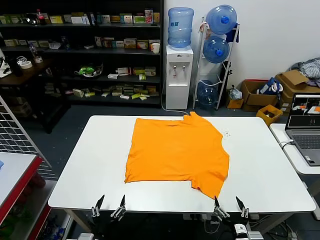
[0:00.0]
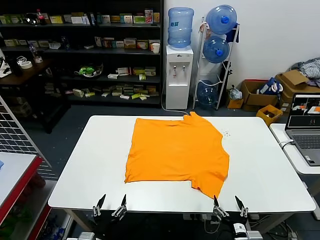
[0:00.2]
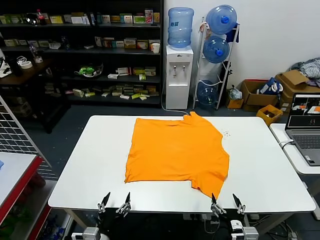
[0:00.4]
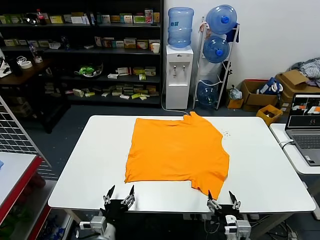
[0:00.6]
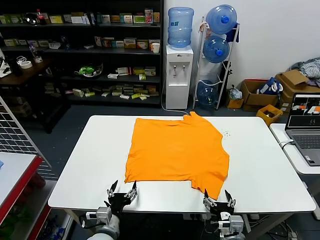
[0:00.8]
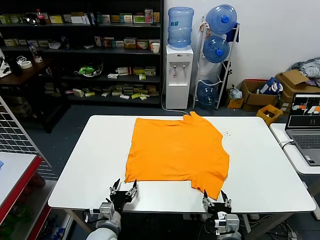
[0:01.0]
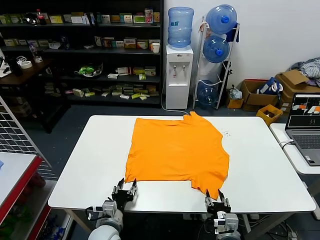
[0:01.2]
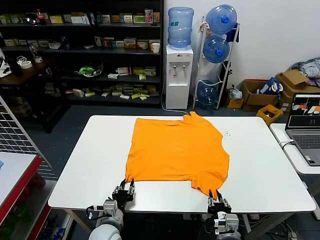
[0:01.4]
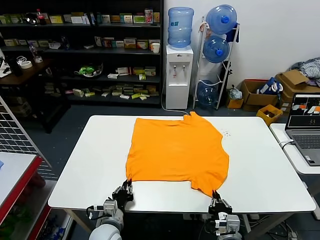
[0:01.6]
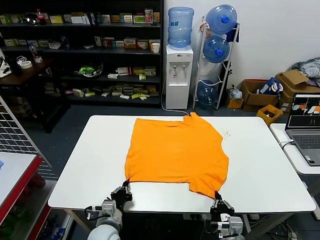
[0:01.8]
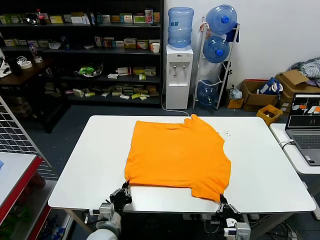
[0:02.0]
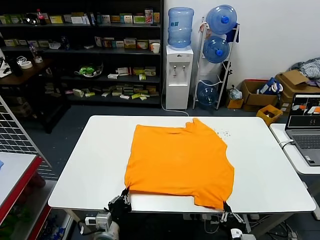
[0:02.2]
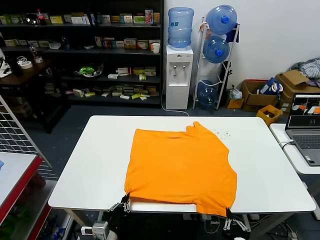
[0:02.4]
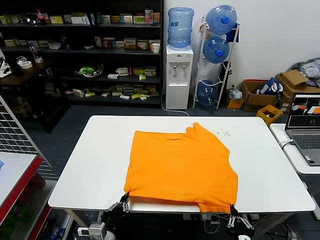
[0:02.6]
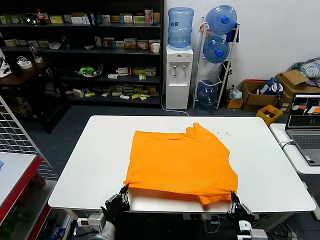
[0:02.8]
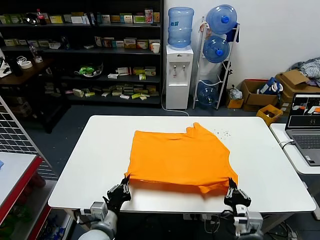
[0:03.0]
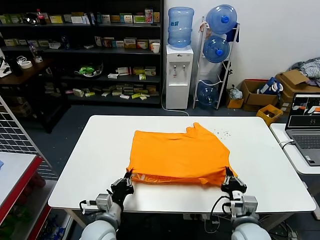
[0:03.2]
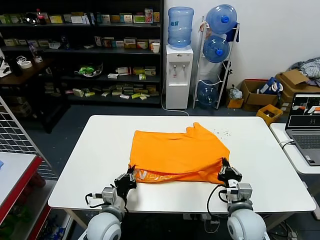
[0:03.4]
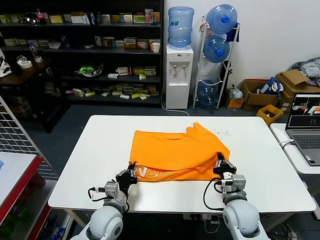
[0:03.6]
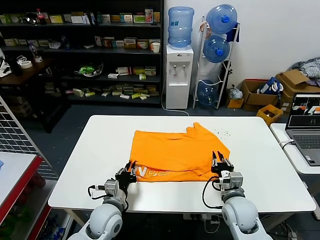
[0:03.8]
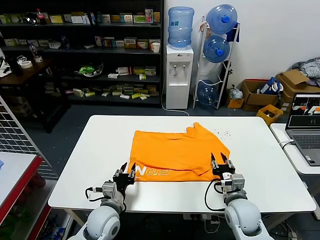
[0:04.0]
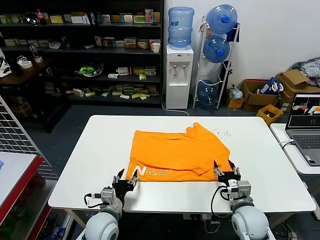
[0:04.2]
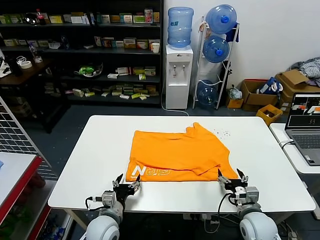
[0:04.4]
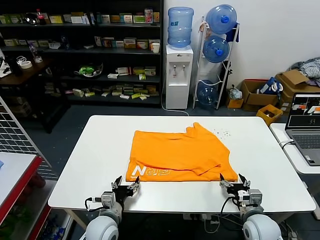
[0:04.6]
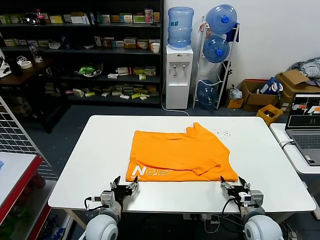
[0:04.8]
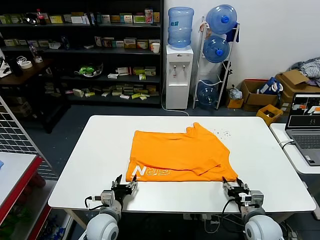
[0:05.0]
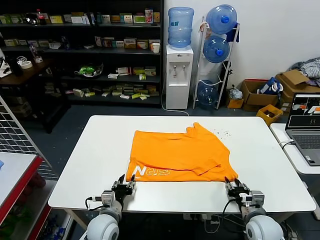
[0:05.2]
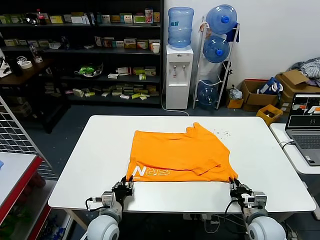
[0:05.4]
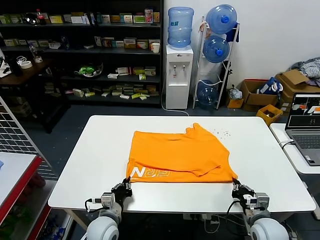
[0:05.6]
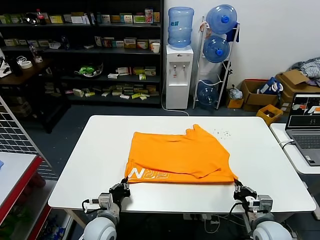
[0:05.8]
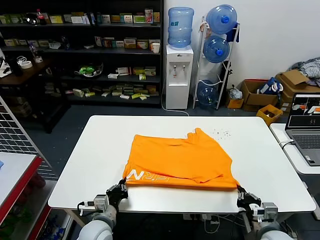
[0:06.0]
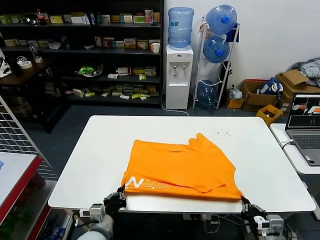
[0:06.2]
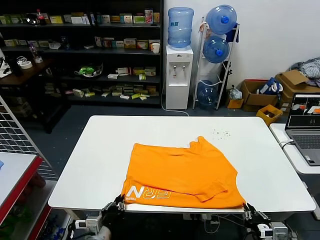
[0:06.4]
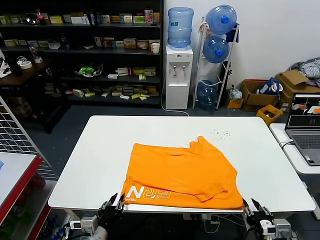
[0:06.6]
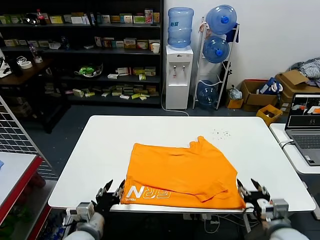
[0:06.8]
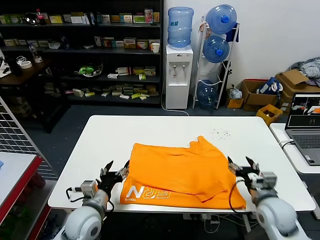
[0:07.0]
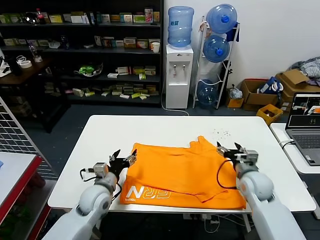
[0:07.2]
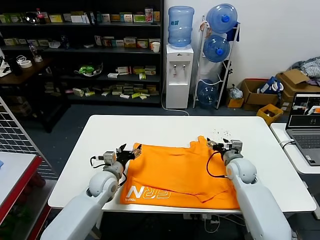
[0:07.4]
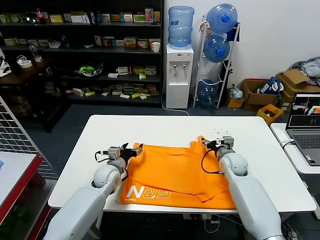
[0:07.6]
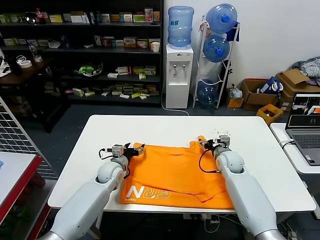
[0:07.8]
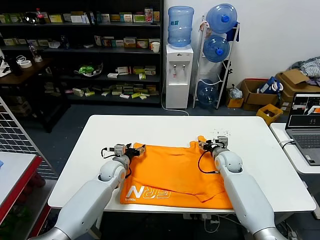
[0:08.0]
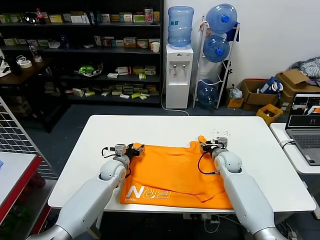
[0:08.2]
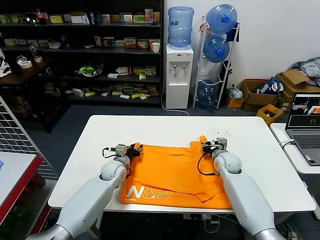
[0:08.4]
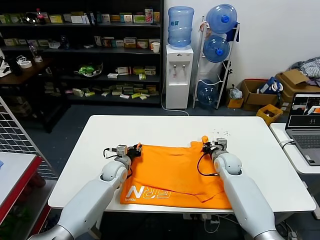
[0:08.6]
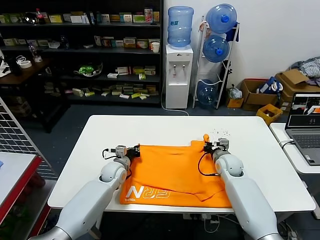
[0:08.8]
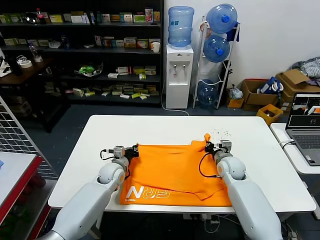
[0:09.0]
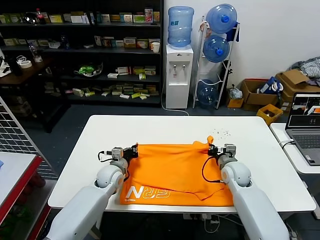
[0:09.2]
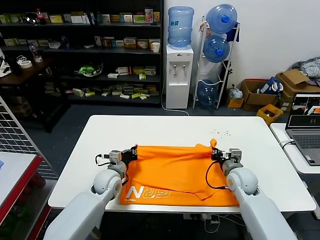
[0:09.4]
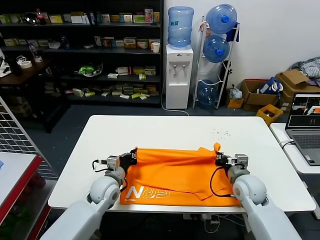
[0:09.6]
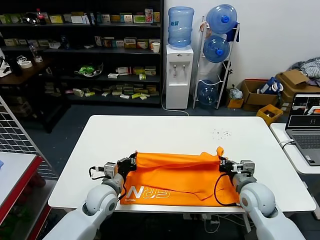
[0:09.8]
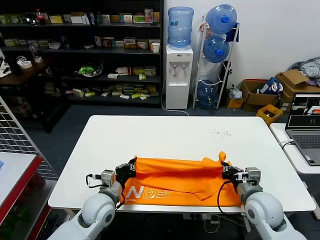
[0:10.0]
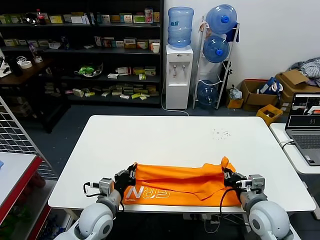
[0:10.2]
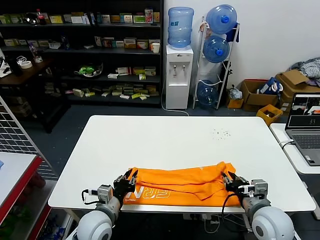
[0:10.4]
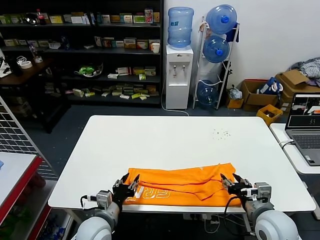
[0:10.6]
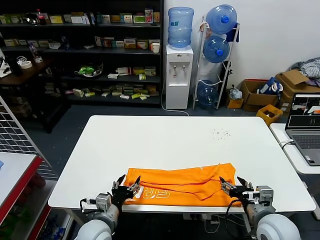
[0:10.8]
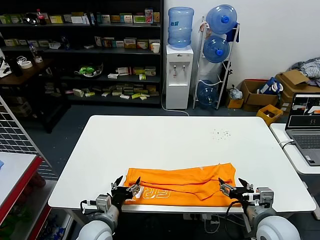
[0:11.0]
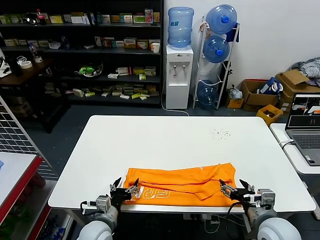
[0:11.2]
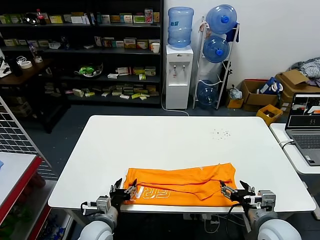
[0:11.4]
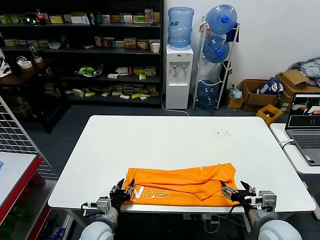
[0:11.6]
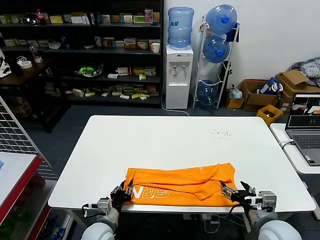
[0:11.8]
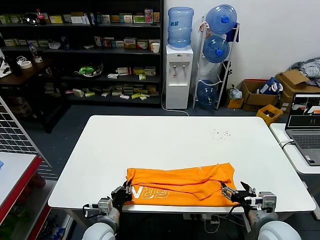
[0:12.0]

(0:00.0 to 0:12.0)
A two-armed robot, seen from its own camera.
Task of the whole recording: fold and organize the clothes.
Step, 0:00.0 - 0:02.0: use both grippers simultaneously to clamp the lower edge of the clothing fabric.
Step, 0:02.2 - 0:04.2: use both grippers to drag the lower edge of the fabric forward and fold it over the upper edge.
Step, 0:04.4 - 0:06.8: Drag the clothes downward with both gripper.
Step, 0:07.0 - 0:08.6: use both grippers simultaneously to clamp the upper edge of the clothing fabric.
Step, 0:08.8 - 0:10.8: use both grippers to drag the upper edge of the fabric backward and fold it over the lower edge.
0:01.6 - 0:03.0: The left gripper goes roughly 10 cm upward and backward, while the right gripper shifts about 5 cm upward, and moves some 10 cm backward and comes back.
0:03.0 - 0:04.4: Both grippers move forward, about 10 cm. The left gripper opens its fingers. The right gripper opens up.
0:04.4 - 0:06.0: The right gripper travels backward by about 5 cm, and closes up; the left gripper closes.
0:06.0 - 0:07.6: The left gripper heads forward, covering approximately 15 cm, and opens its fingers, while the right gripper shifts roughly 25 cm forward, and opens up.
0:07.6 - 0:09.0: The right gripper closes its fingers. Meanwhile the left gripper shifts by approximately 5 cm, and closes.
0:09.0 - 0:10.4: The grippers both shift backward by approximately 20 cm.
0:10.4 - 0:12.0: The left gripper shifts approximately 10 cm downward, and opens, then closes once more; the right gripper opens up.

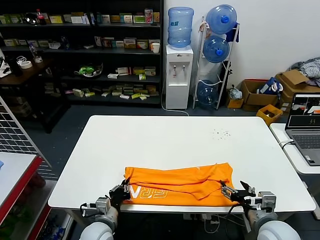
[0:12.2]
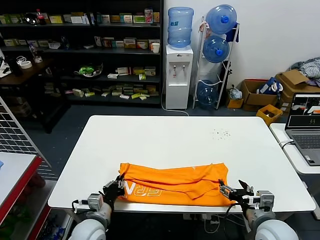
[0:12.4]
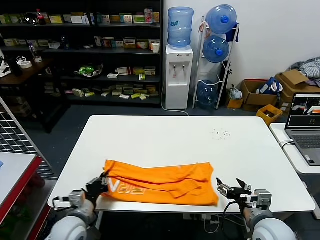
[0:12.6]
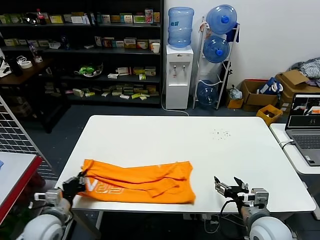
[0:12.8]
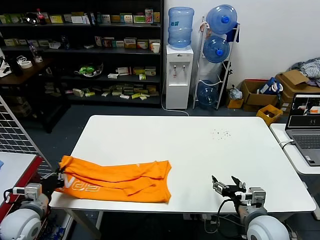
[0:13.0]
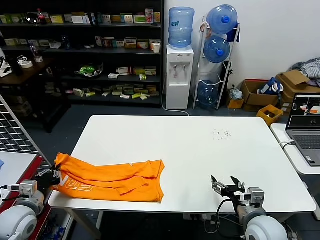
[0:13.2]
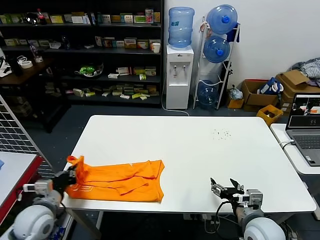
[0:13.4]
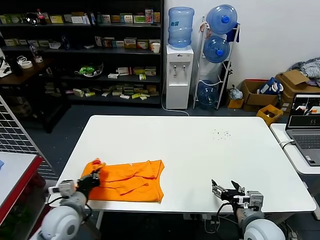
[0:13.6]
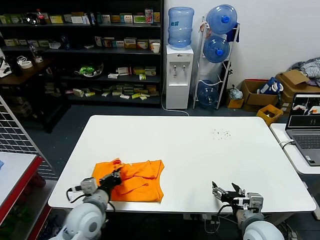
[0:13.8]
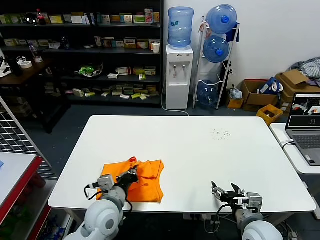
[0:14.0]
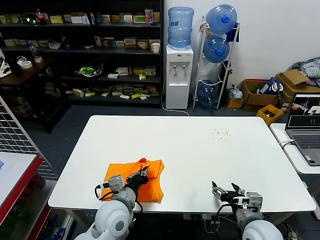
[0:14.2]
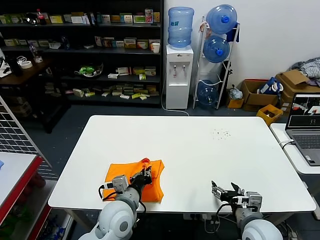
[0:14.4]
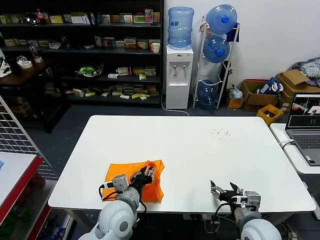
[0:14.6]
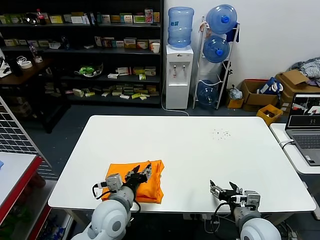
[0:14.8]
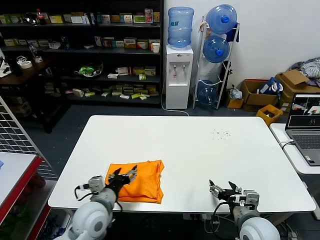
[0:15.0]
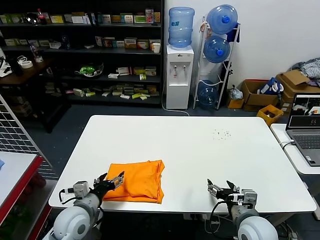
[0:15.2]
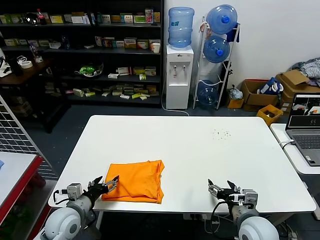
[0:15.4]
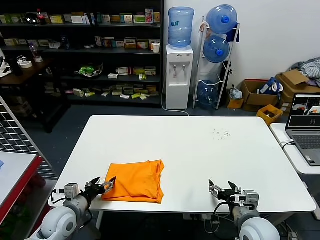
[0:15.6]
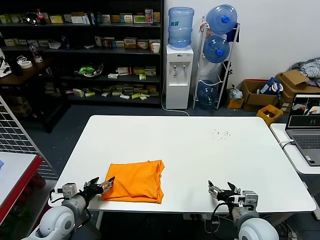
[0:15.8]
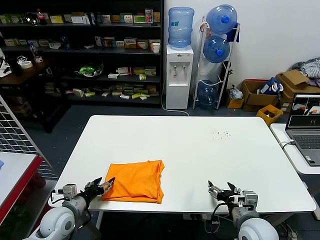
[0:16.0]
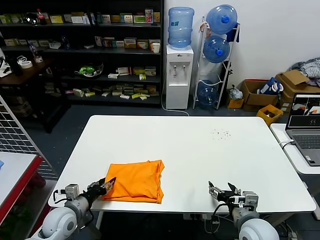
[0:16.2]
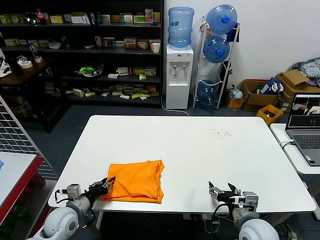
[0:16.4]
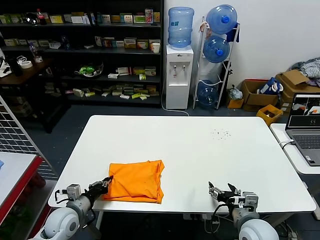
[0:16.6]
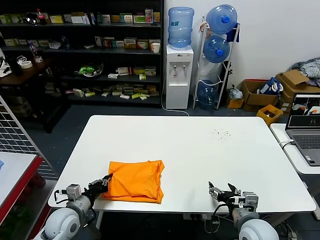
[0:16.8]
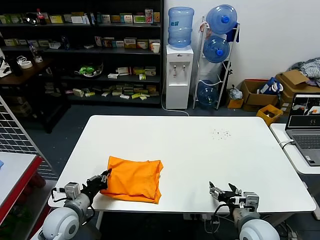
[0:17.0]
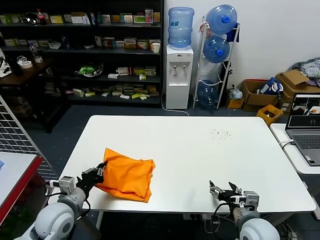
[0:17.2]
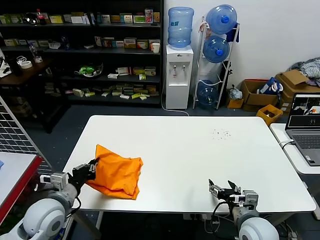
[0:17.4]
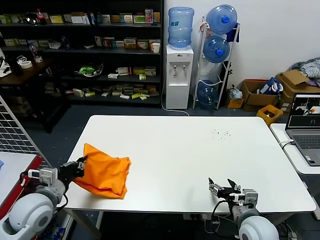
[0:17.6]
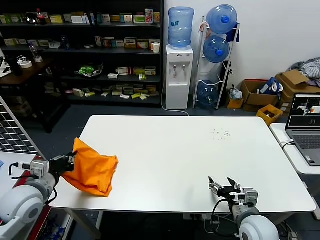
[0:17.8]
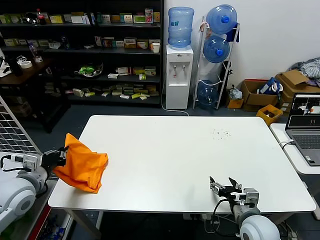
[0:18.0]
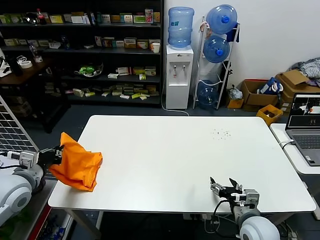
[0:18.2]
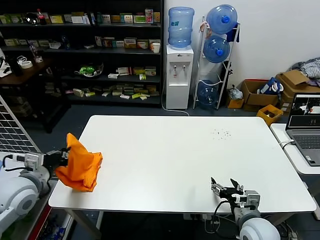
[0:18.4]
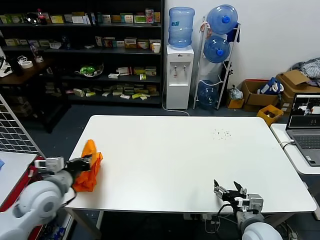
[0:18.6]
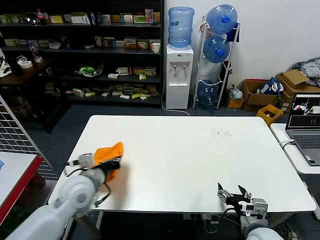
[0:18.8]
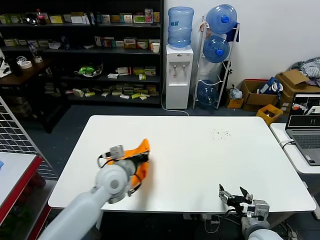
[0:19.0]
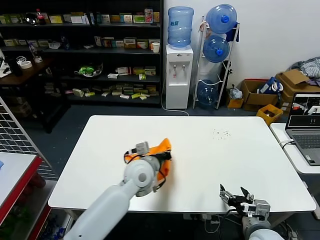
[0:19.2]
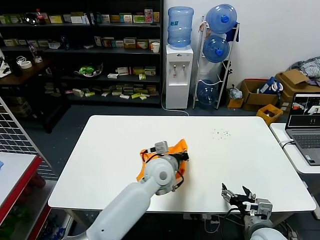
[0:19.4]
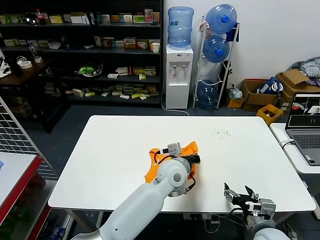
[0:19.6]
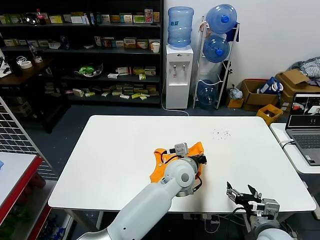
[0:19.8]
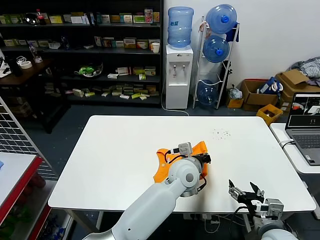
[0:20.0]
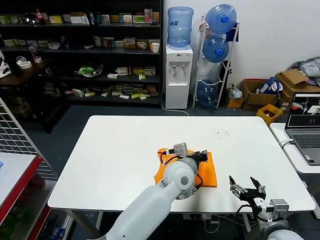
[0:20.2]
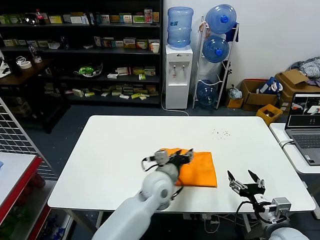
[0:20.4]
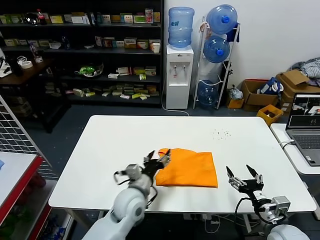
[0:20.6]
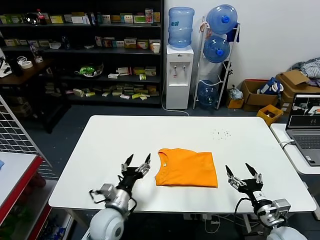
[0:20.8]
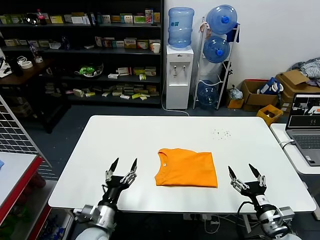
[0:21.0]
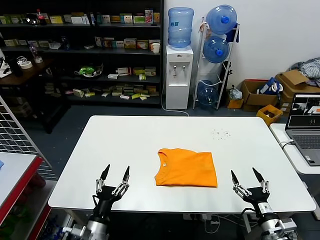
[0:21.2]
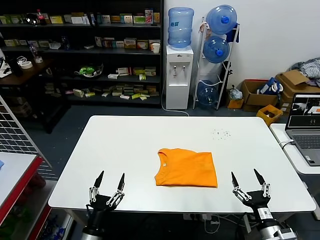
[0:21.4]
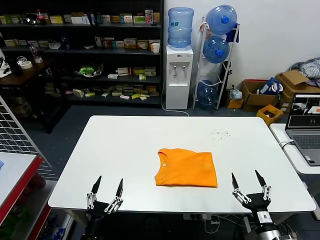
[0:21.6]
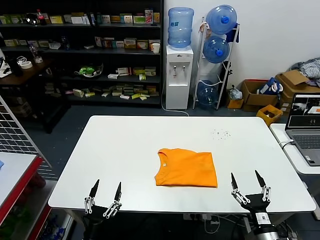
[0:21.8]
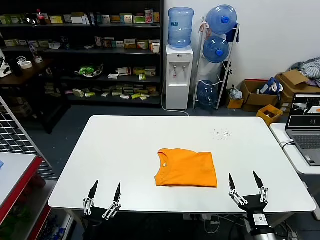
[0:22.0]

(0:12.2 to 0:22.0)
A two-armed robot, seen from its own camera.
Task of the whole recording: fold and organize the clothes.
Step, 0:12.4 - 0:14.8: use the left gripper to drag the left edge of the fabric to the left and folds it over the right edge.
Step, 0:15.0 - 0:20.2: Flip the folded clothes over with left gripper.
0:12.2 - 0:13.6: The left gripper shifts some 15 cm to the left and upward.
0:13.6 - 0:15.0: The left gripper goes roughly 15 cm to the right, and opens.
0:15.0 - 0:16.4: The left gripper heads to the left and downward, covering about 15 cm, and closes its fingers.
0:16.4 - 0:17.8: The left gripper goes approximately 15 cm upward, and closes up.
0:17.8 - 0:19.2: The left gripper goes about 30 cm to the right and forward.
0:19.2 - 0:20.6: The right gripper shifts roughly 5 cm to the right, while the left gripper travels downward by roughly 5 cm, reaches roughly 15 cm to the right, then returns, and opens its fingers.
0:20.6 - 0:22.0: The right gripper heads downward and backward, covering roughly 10 cm, while the left gripper is displaced backward, to the left and downward by approximately 30 cm.
